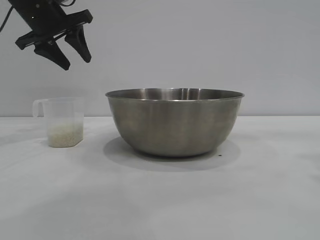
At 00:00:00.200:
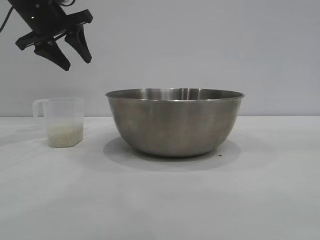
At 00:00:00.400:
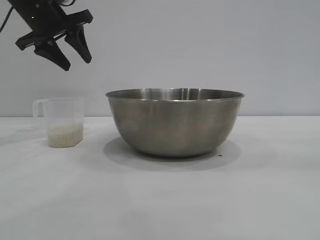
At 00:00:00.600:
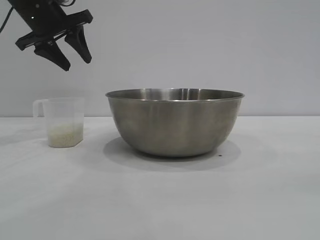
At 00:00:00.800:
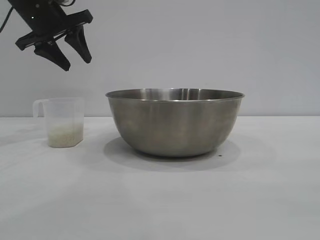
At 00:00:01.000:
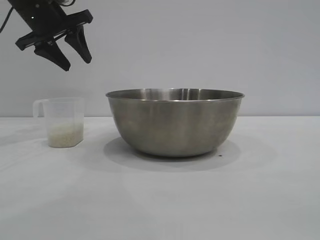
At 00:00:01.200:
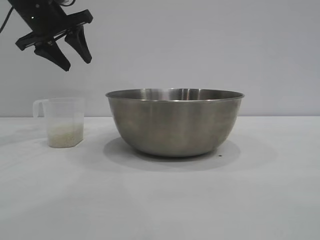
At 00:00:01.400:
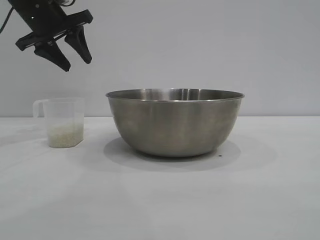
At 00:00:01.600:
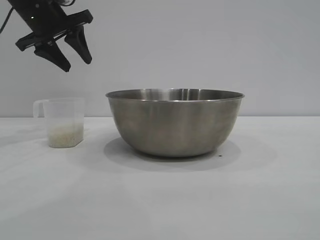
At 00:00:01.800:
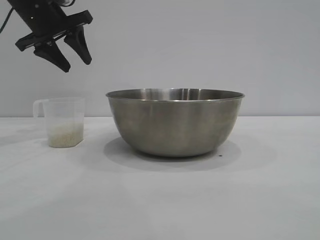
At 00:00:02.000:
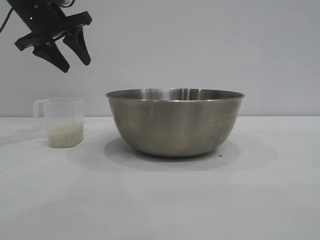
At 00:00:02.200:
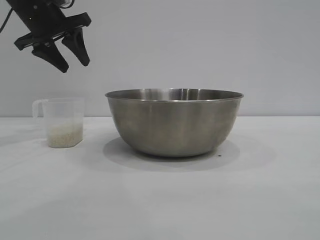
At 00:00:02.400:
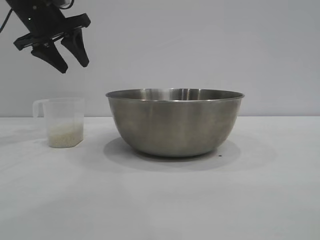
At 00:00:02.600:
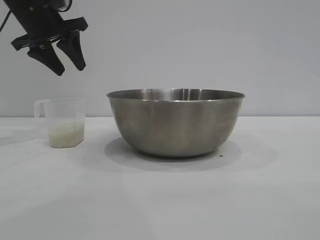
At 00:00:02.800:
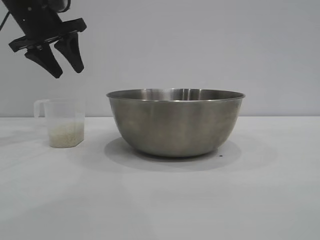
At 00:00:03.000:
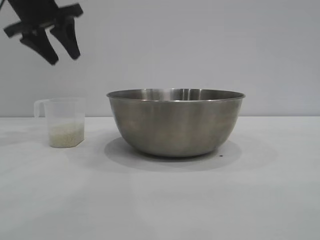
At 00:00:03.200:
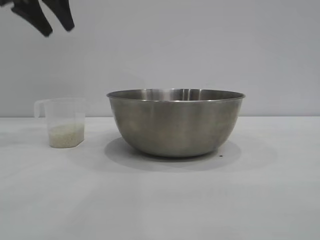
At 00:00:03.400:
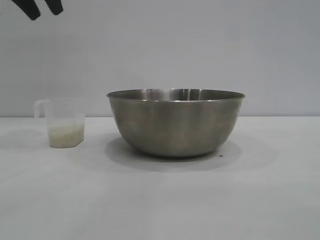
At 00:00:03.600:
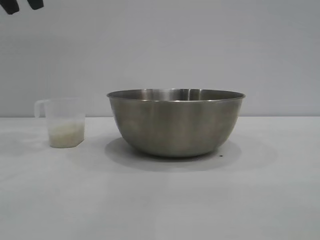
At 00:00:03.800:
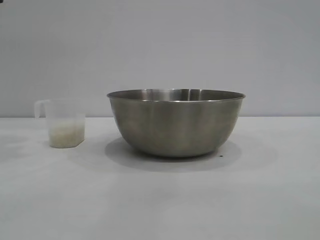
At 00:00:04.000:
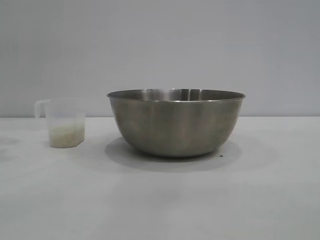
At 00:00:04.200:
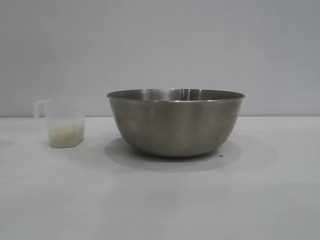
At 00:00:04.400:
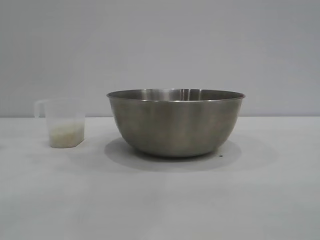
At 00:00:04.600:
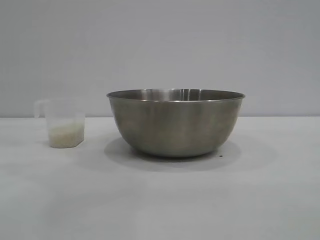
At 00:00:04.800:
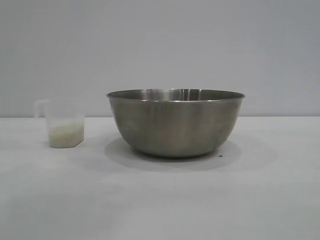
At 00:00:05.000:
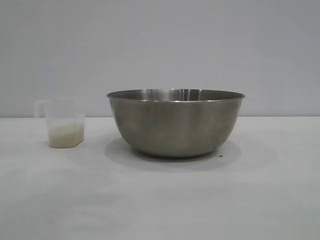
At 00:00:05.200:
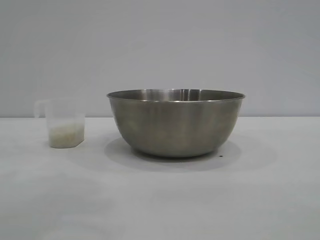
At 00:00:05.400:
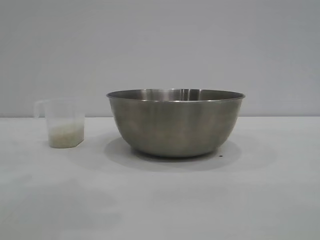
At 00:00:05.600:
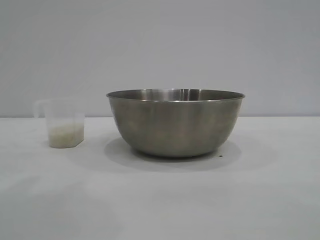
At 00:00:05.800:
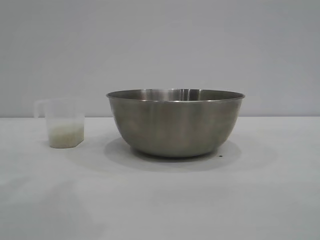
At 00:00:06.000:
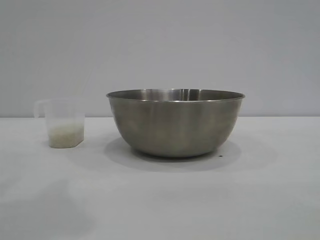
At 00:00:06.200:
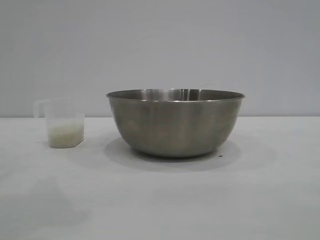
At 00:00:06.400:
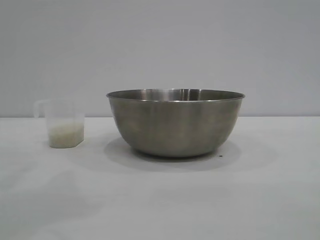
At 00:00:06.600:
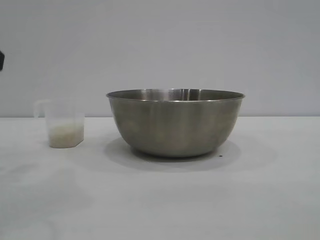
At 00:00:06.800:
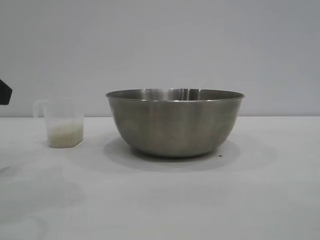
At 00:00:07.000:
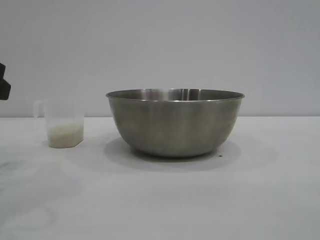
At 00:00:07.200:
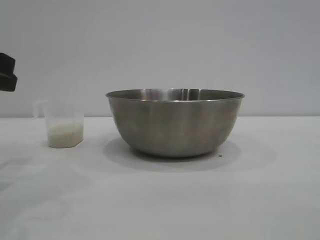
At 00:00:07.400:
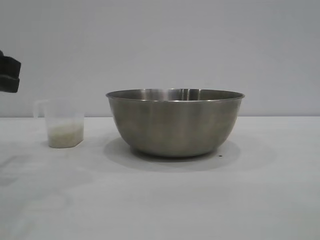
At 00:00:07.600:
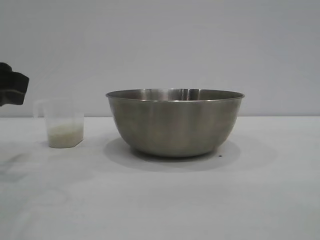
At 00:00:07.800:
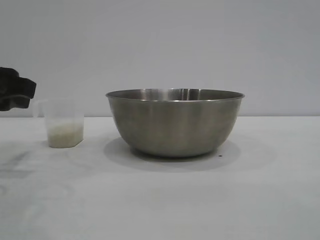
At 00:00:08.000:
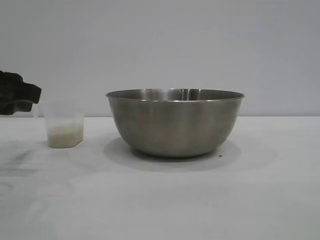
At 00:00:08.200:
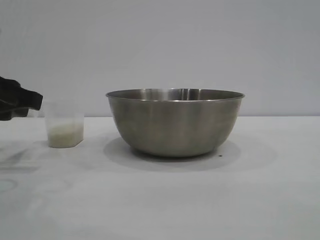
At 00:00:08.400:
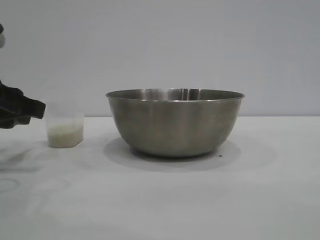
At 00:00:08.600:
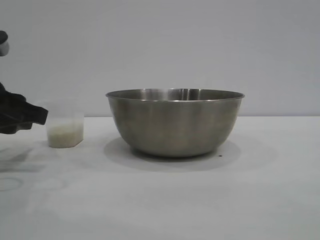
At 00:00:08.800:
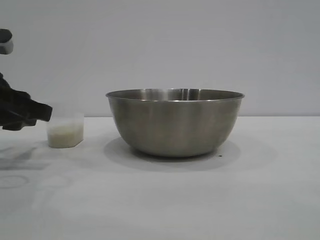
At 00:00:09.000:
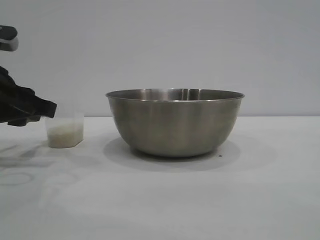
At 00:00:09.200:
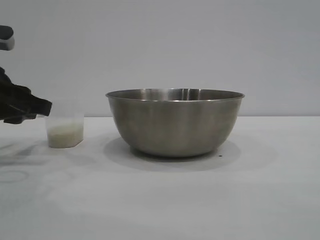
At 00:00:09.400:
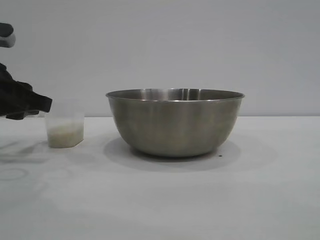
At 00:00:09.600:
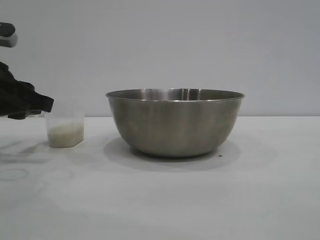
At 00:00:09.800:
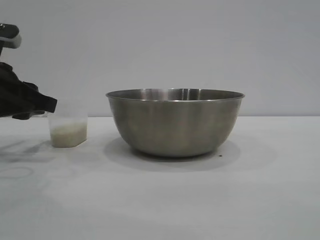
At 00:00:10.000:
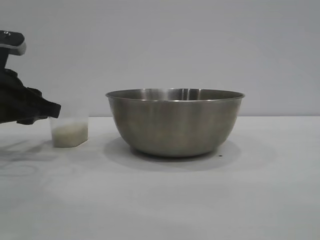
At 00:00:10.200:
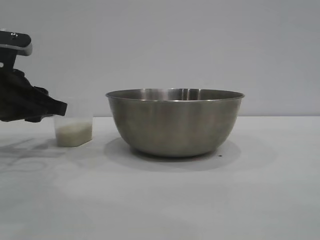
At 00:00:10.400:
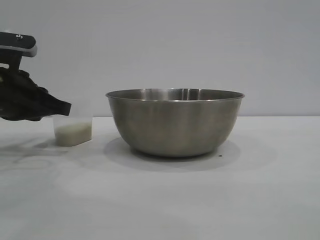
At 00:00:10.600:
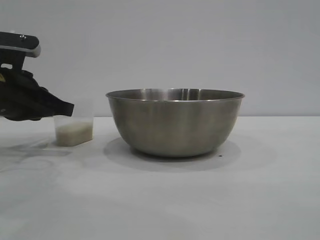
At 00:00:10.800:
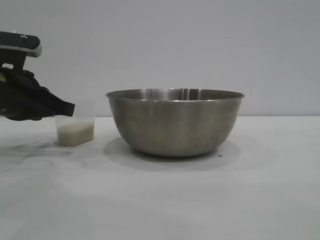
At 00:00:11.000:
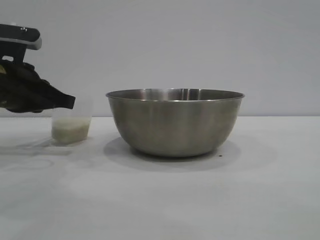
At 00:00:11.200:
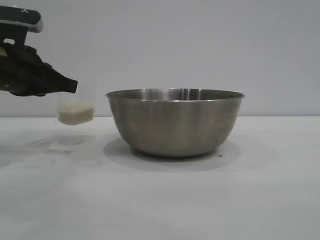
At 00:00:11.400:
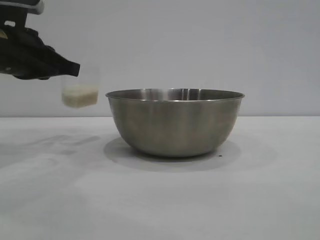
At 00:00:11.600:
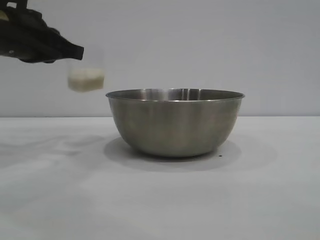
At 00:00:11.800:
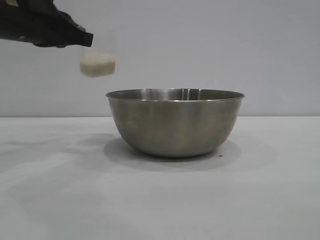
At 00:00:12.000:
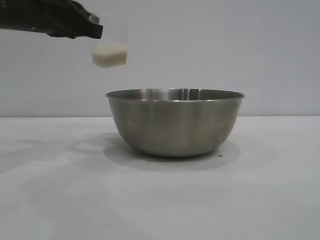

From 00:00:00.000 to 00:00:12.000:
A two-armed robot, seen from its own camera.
Task of the whole recording: the right gripper grasp the rice container and place it in the center of the table, the left gripper grasp the rice scoop and pour the rice into the rice container.
Step, from 00:00:00.000 to 00:00:11.200: Pick up the cup with rice in it with the left gripper.

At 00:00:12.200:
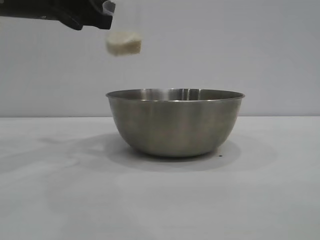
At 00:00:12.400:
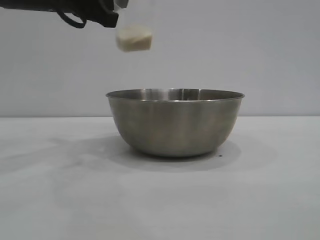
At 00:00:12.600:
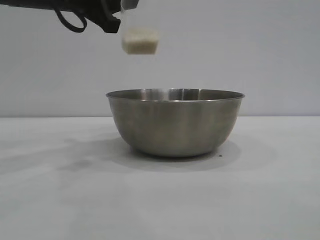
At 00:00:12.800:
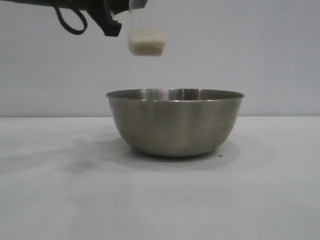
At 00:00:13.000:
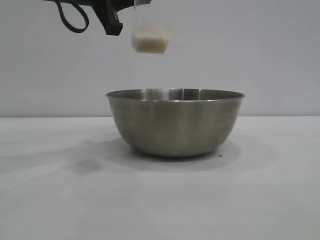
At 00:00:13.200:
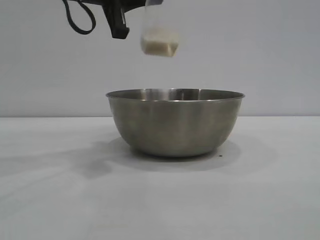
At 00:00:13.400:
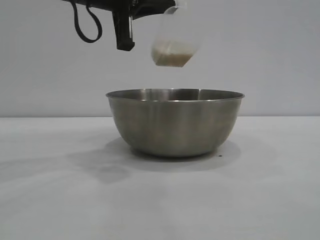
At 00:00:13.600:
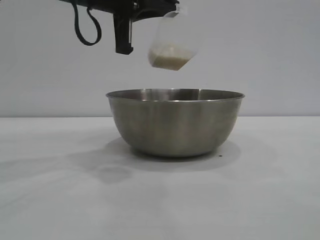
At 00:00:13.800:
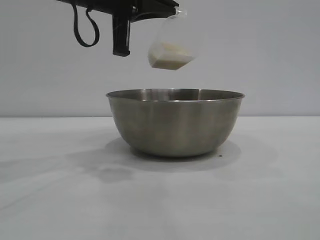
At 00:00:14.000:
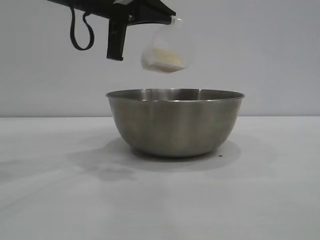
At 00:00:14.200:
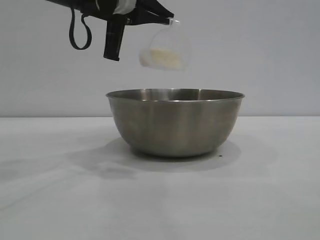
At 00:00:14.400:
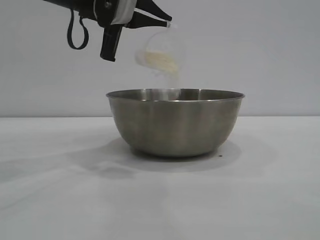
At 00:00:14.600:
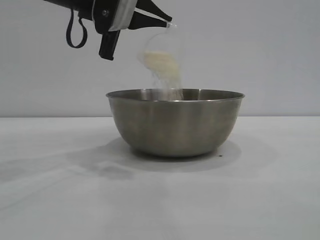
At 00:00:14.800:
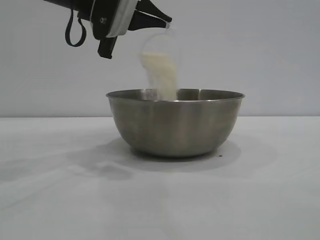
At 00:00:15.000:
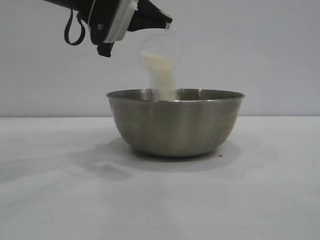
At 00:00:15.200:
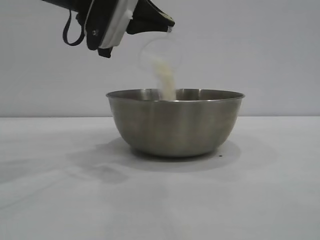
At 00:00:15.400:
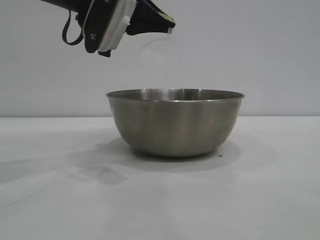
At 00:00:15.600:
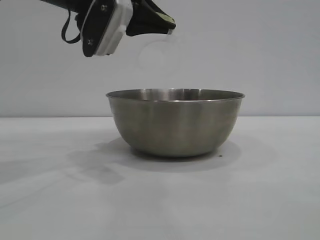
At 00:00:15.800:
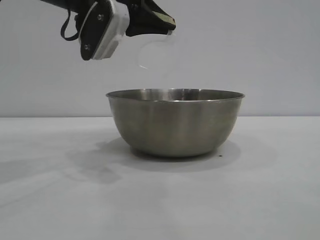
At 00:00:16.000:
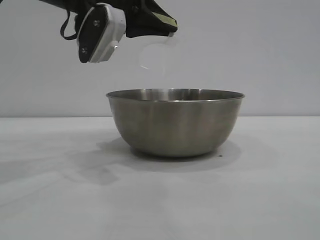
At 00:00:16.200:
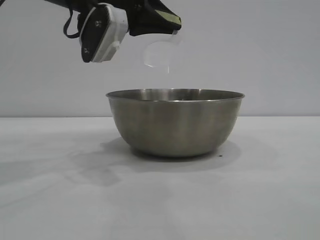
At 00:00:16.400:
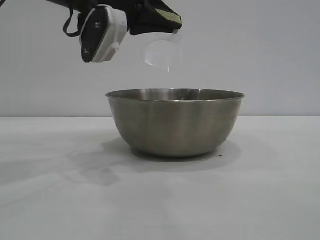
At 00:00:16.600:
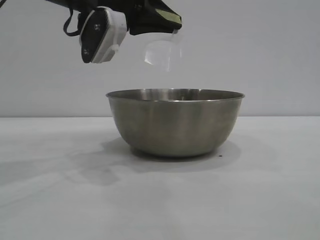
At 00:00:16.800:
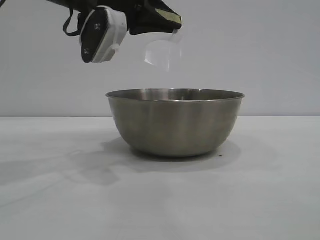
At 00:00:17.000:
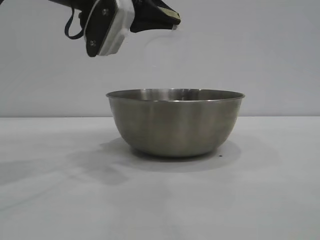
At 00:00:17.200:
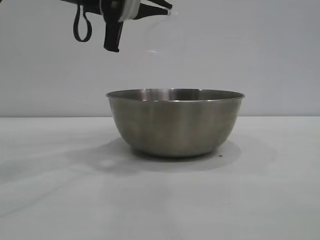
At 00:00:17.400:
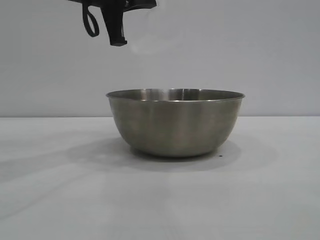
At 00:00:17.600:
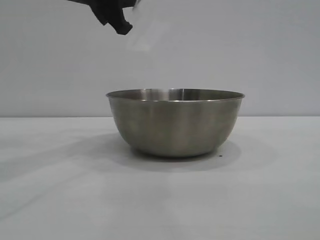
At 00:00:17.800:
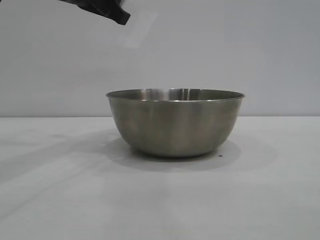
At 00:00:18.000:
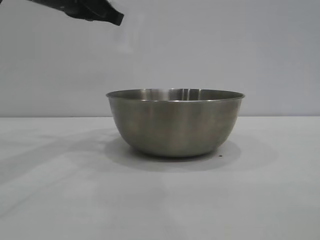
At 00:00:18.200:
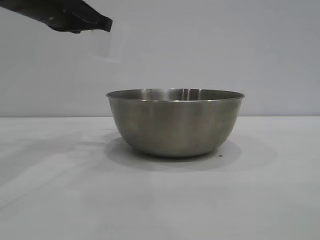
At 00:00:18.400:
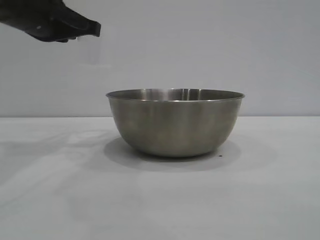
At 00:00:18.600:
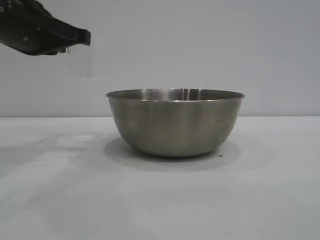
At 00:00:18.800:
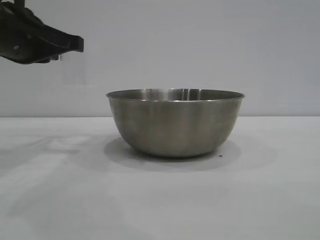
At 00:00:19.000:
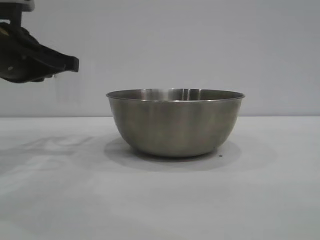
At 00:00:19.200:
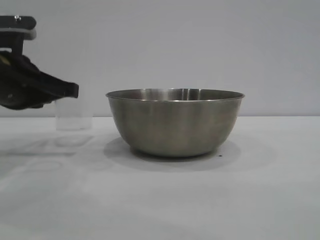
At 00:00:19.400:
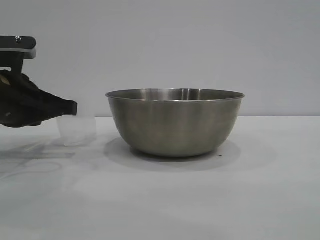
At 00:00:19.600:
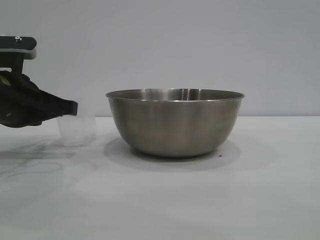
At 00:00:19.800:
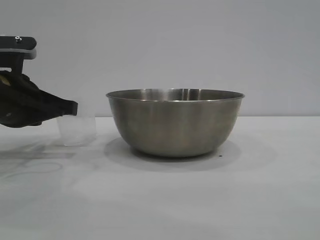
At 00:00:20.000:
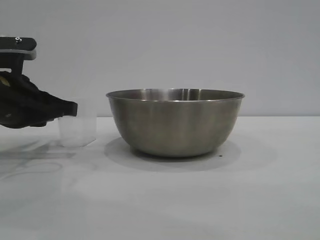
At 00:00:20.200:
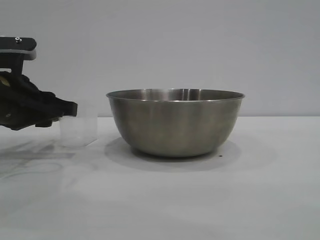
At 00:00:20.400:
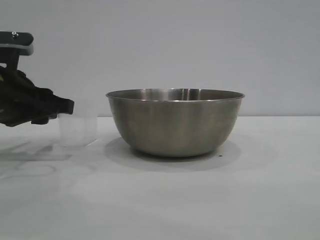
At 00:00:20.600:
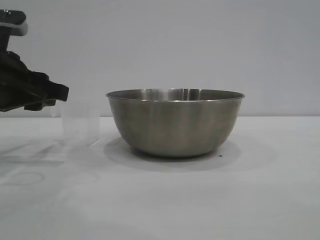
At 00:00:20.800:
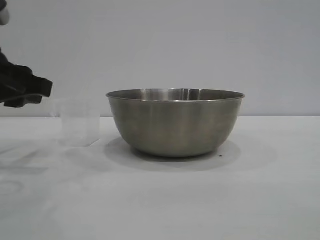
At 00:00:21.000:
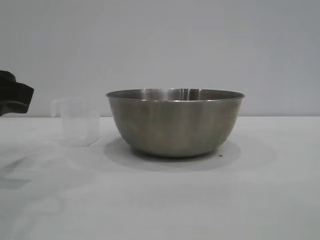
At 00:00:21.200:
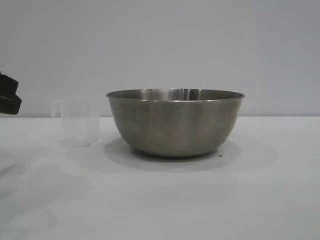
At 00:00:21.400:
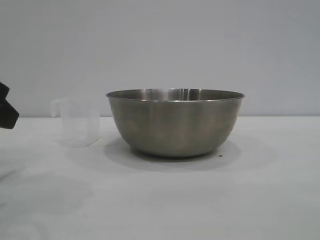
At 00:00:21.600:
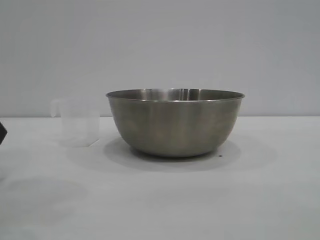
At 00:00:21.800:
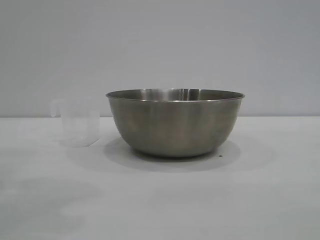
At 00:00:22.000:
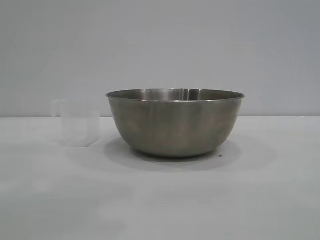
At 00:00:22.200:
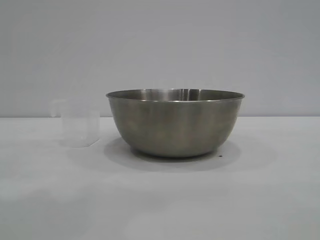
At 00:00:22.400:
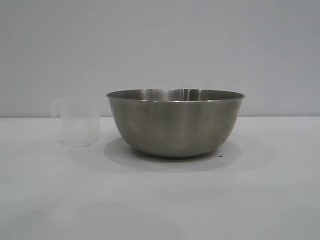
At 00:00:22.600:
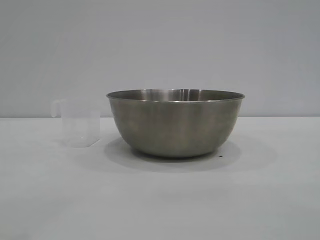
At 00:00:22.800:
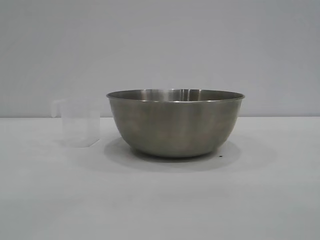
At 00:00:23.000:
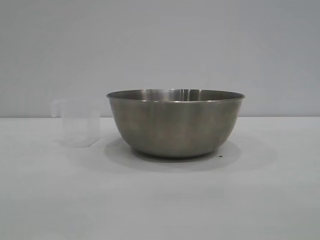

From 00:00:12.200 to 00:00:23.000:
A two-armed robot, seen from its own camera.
Task of the whole recording: the right gripper grasp the rice container and place it in the center of the table, the left gripper grasp the rice scoop and pour the rice into the rice container.
Step, from 00:00:12.200 to 00:00:16.800: Pour the rice from the cup into the bowl with the left gripper.
Step, from 00:00:17.000 to 00:00:20.600: Place the cup on the table with the left gripper.
